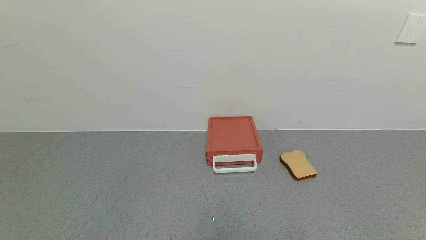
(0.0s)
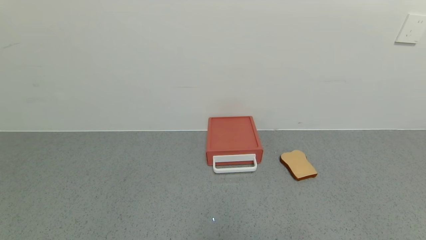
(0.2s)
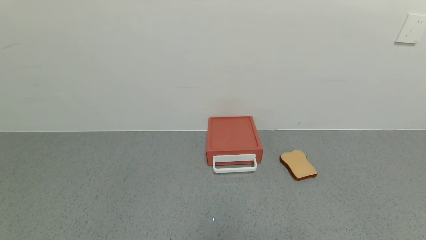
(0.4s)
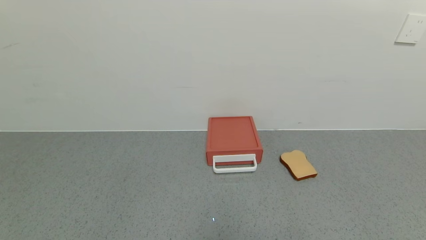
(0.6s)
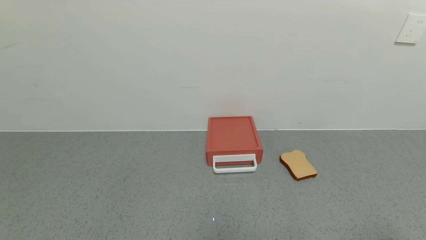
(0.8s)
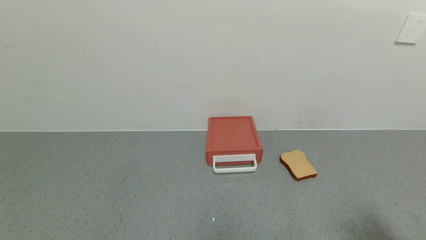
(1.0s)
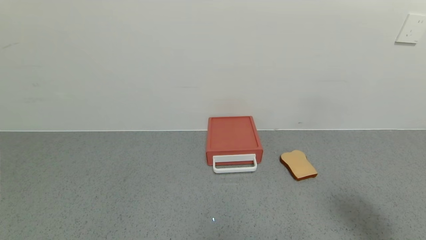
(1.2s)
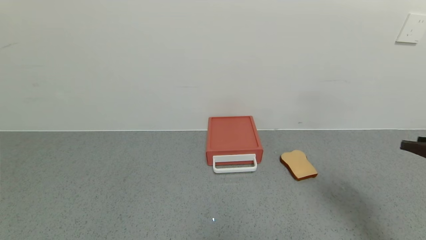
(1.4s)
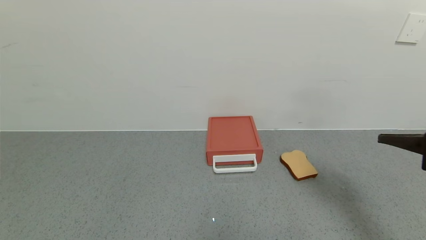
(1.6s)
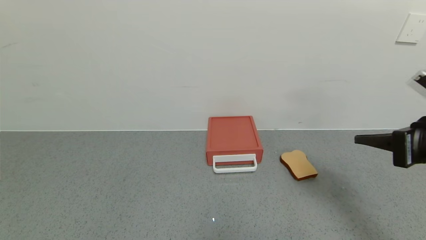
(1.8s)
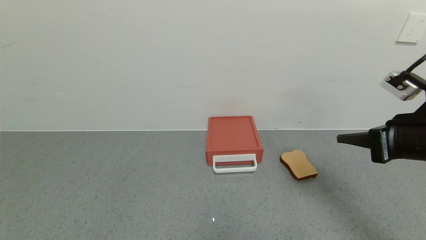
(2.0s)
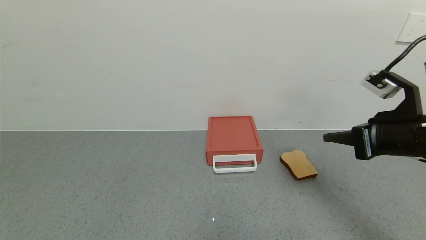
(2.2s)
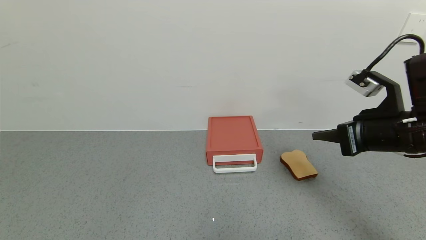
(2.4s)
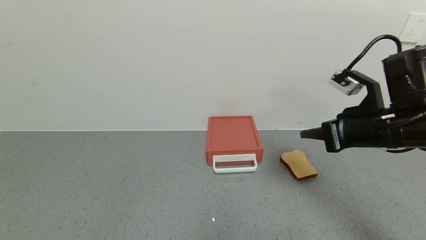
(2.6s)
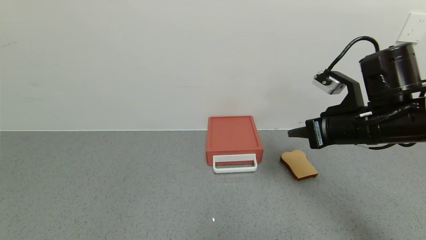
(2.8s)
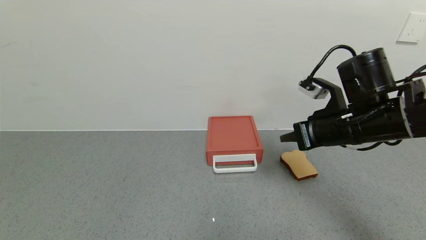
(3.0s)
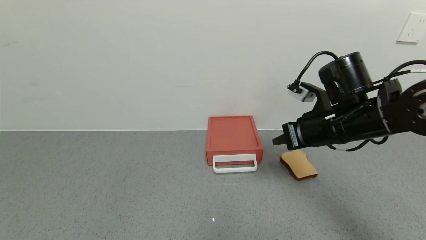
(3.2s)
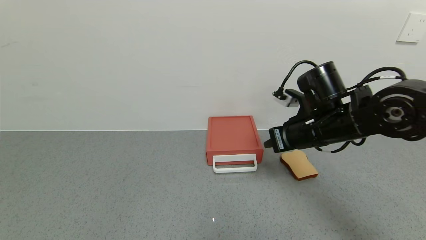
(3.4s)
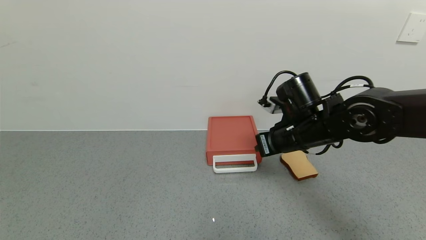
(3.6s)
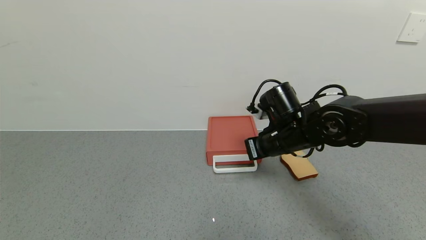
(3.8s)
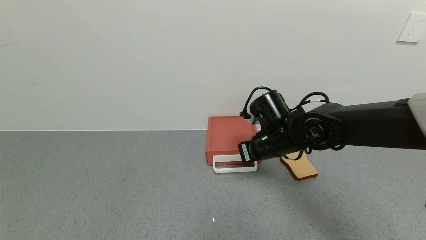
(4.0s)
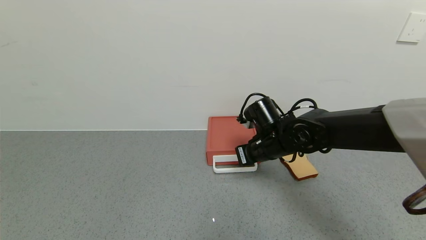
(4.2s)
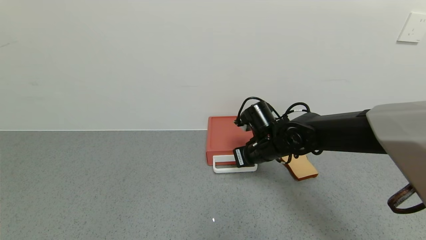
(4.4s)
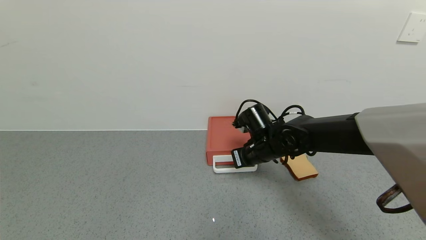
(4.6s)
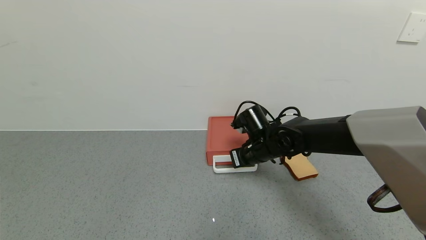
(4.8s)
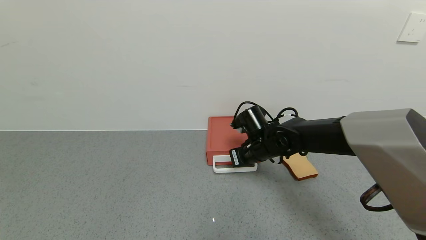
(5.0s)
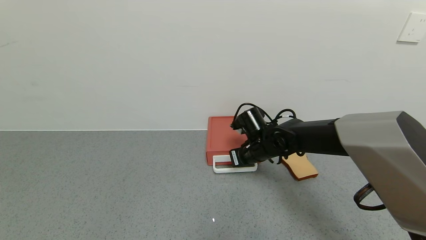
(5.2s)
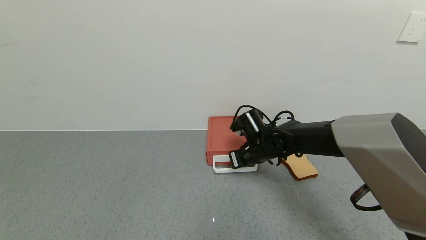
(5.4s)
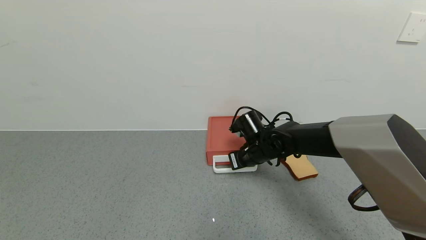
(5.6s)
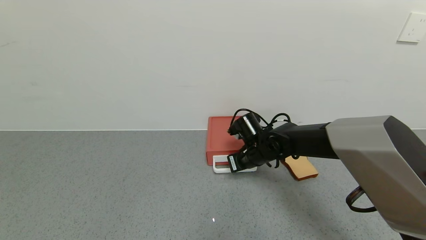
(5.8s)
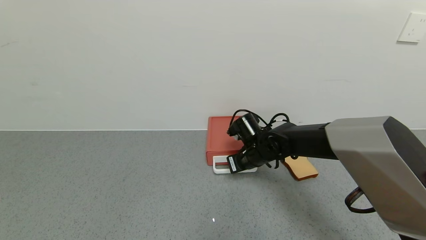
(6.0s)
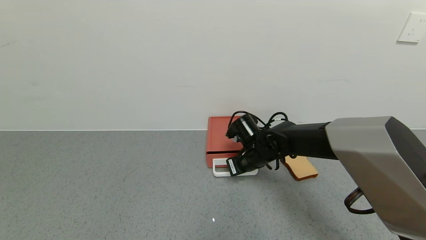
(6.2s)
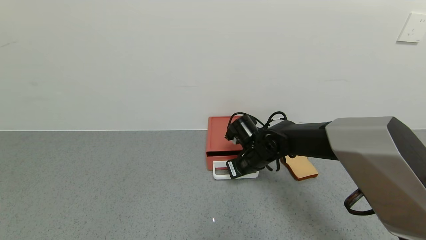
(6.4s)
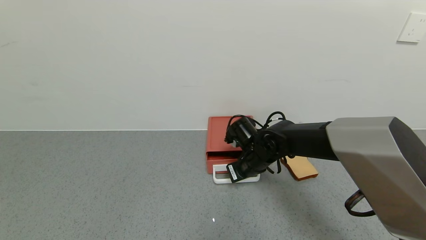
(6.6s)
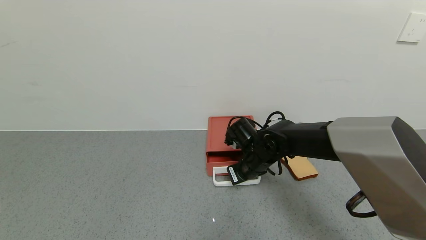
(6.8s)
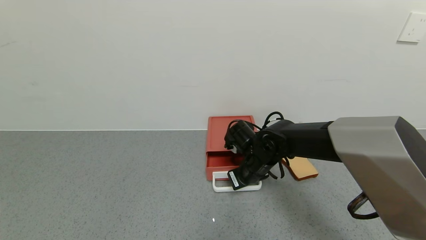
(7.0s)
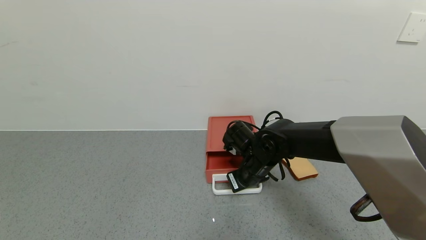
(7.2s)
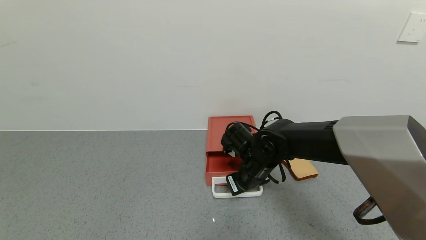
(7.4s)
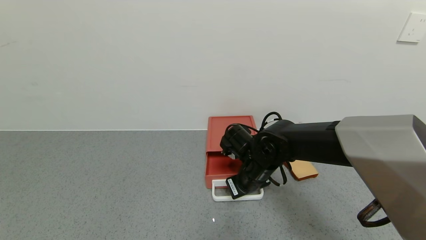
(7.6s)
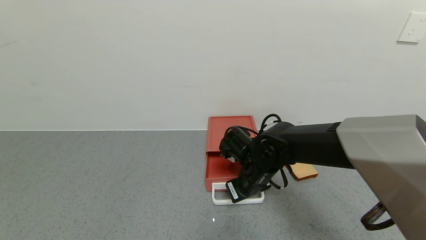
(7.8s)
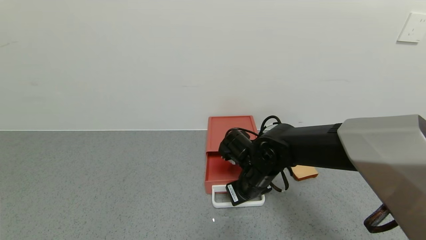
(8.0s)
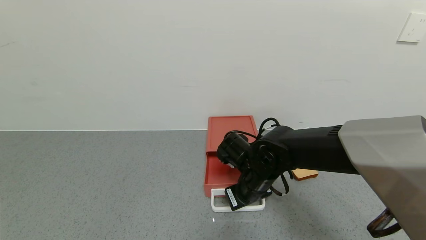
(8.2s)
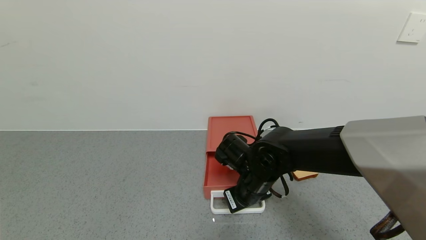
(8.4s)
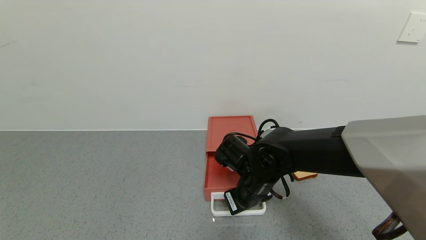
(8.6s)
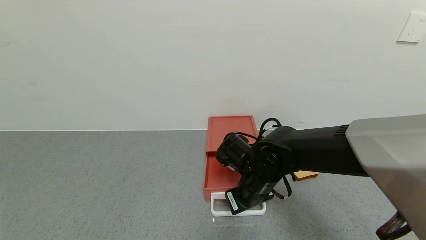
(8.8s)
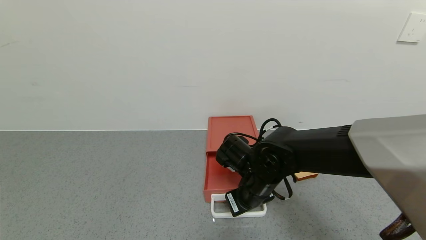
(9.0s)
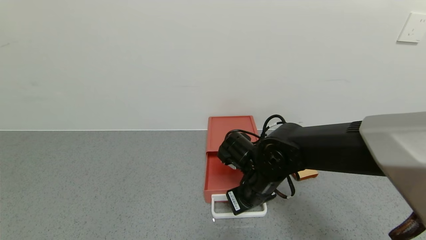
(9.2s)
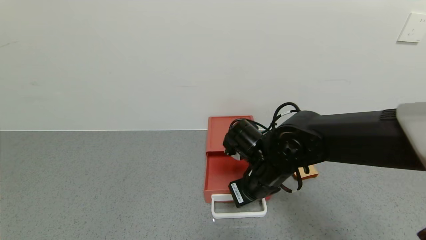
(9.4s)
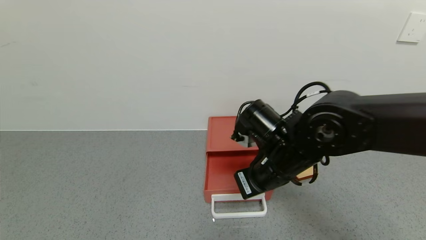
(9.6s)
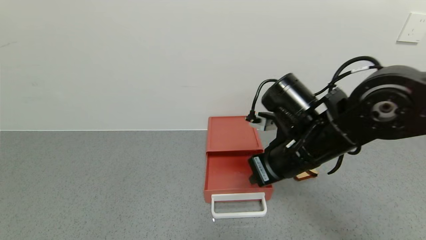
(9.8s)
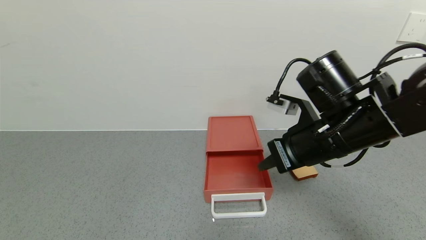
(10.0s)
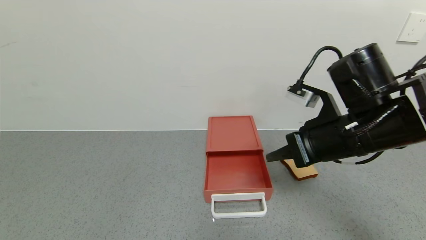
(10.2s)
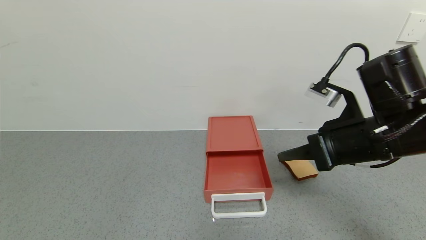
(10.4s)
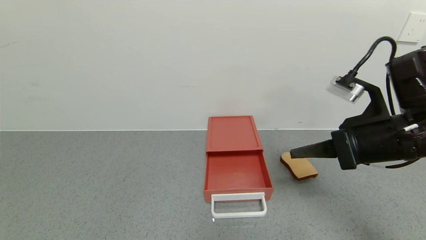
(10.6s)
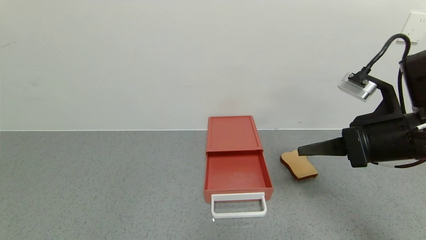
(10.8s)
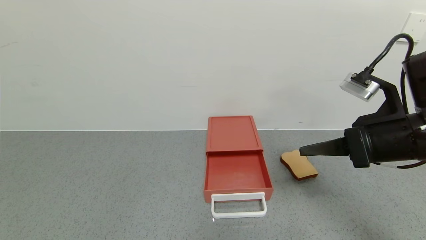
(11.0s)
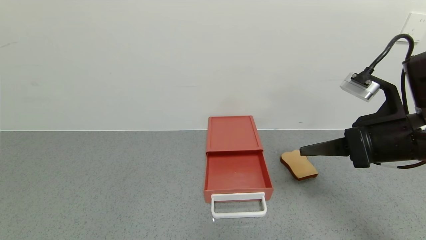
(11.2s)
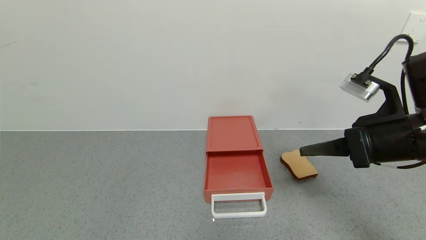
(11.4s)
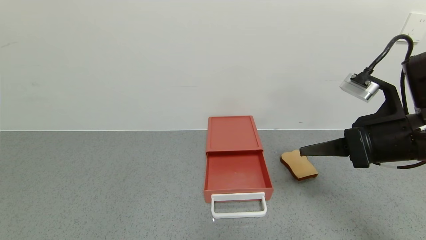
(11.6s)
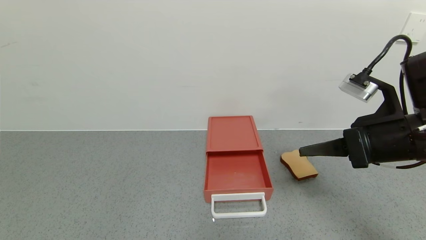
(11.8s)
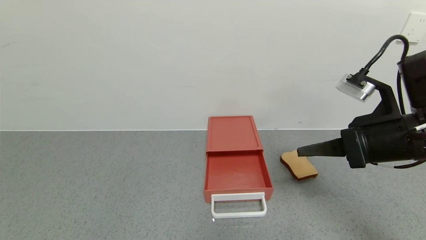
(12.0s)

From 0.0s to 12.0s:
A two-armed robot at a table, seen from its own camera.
Task of the whole recording: use the gripper to open the drawer and close the red drawer.
Step, from 0.0s to 9.6s: Open the red drawer with the right gripper.
From 0.0s to 1.6s: The right gripper travels forward and upward by approximately 30 cm, and closes its fingers.
From 1.6s to 3.0s: The right gripper heads to the left and forward, covering roughly 15 cm.
From 3.0s to 4.4s: The right gripper shifts about 15 cm to the left, downward and forward.
From 4.4s to 6.0s: The grippers stay close to where they were, moving slightly.
From 6.0s to 7.6s: The right gripper heads backward, covering some 5 cm.
From 7.6s to 9.0s: The grippers move only a little.
From 9.0s to 10.4s: The right gripper heads to the right and upward, covering roughly 20 cm.
From 10.4s to 12.0s: The grippers move only a little.

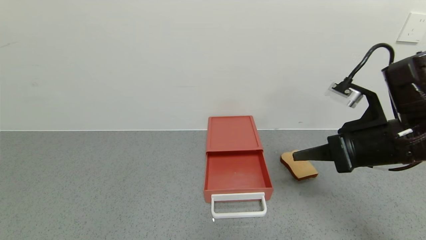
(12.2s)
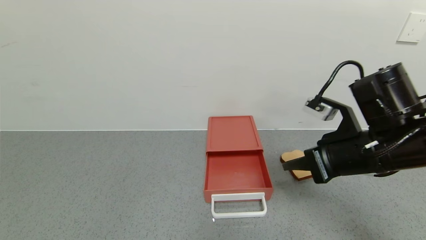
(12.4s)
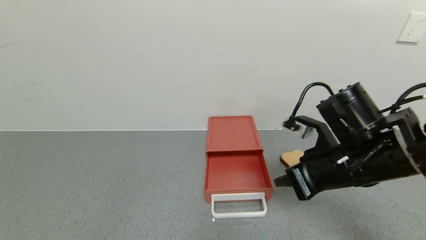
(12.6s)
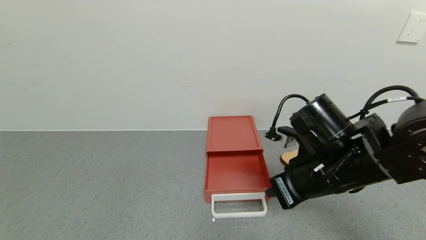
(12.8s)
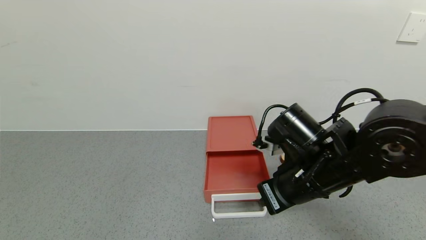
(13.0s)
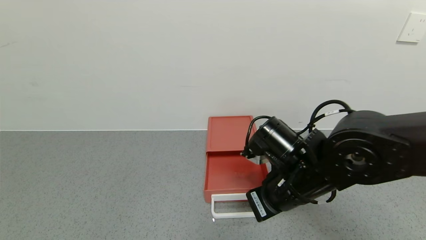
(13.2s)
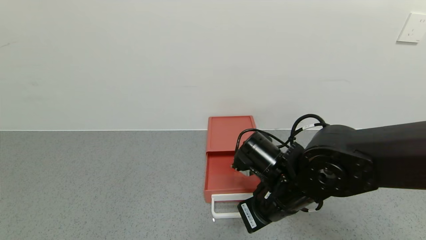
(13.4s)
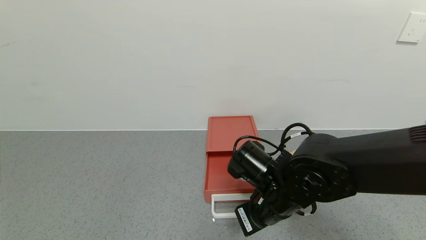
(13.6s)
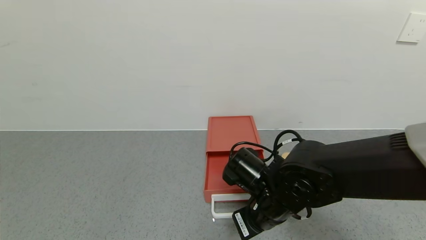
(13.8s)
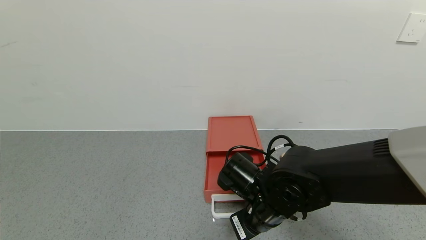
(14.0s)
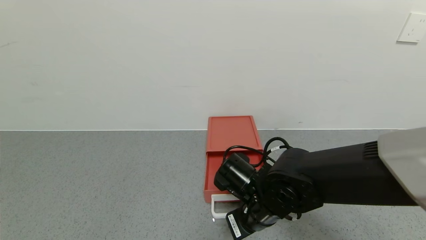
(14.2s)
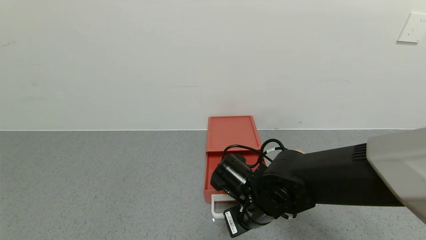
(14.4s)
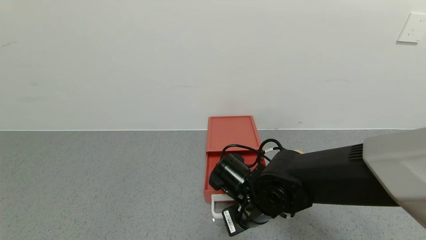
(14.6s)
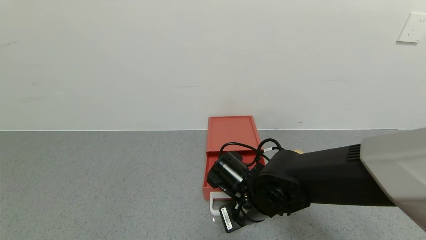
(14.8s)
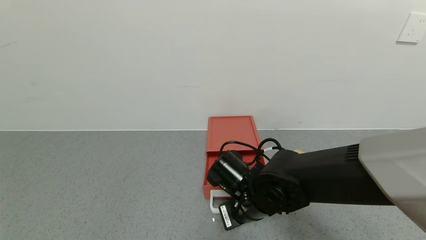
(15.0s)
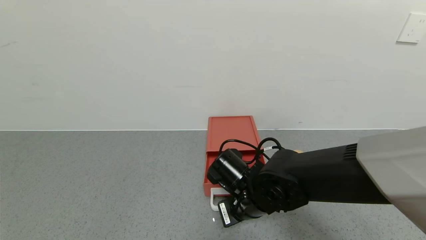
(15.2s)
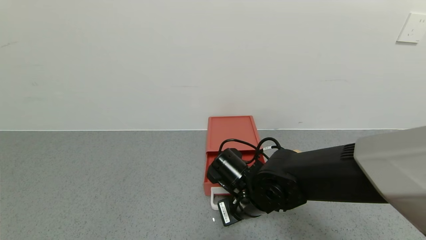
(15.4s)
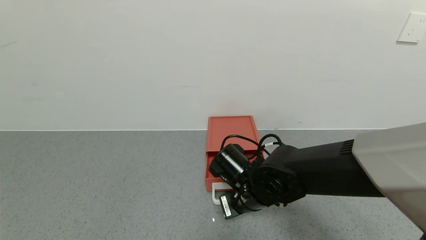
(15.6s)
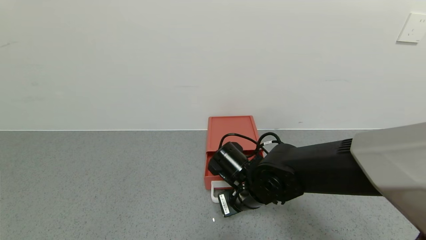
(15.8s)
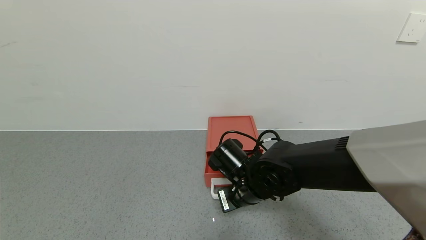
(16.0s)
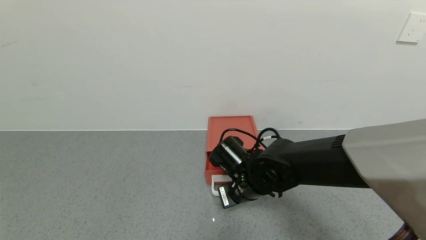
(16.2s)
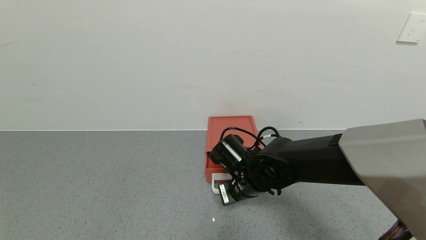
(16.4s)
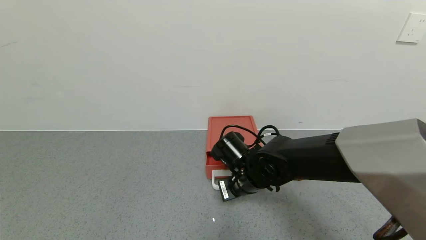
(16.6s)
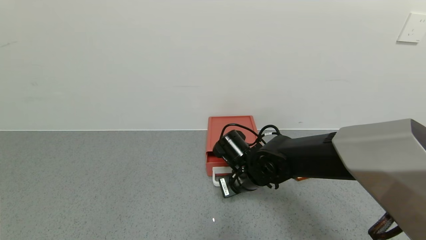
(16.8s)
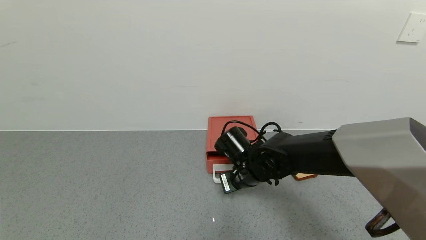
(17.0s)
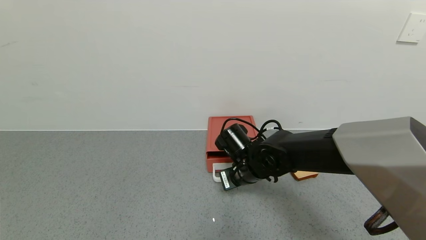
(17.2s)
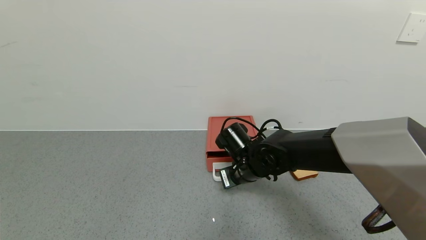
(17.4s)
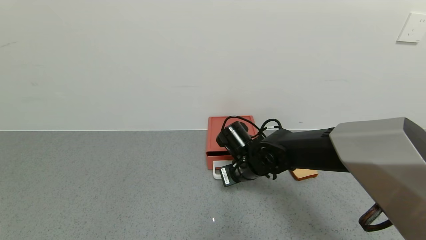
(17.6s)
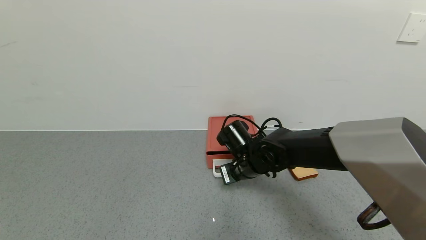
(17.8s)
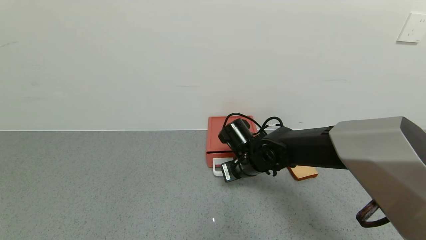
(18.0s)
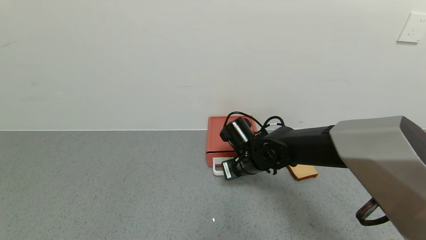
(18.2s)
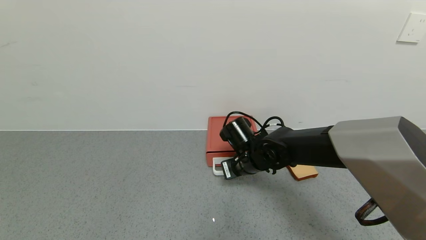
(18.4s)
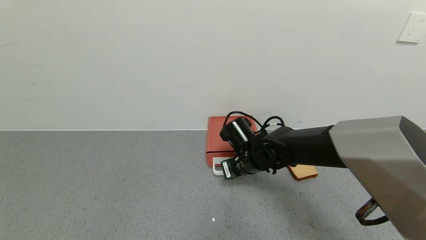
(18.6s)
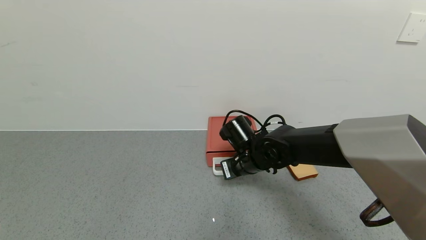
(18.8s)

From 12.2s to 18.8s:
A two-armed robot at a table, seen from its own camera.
Task of the whole recording: use the gripper to open the drawer and close the red drawer.
From 12.2s to 13.8s: The right gripper is displaced to the left and downward by roughly 20 cm.
From 13.8s to 15.4s: The grippers move only a little.
From 15.4s to 17.2s: The right gripper shifts approximately 5 cm forward.
From 17.2s to 18.8s: The grippers make only small movements.
